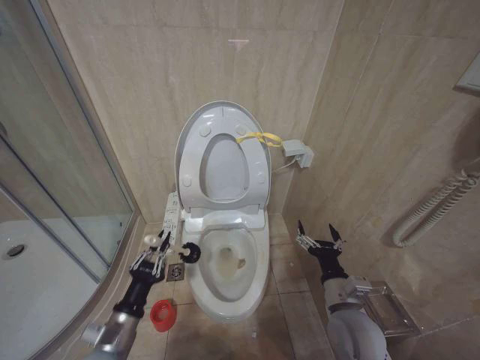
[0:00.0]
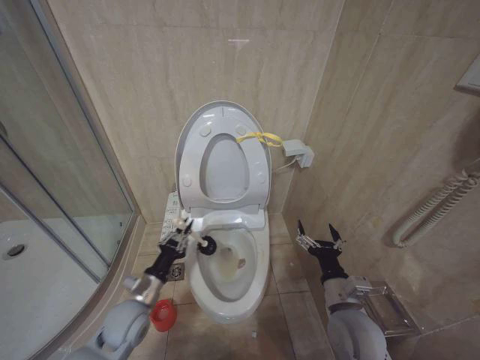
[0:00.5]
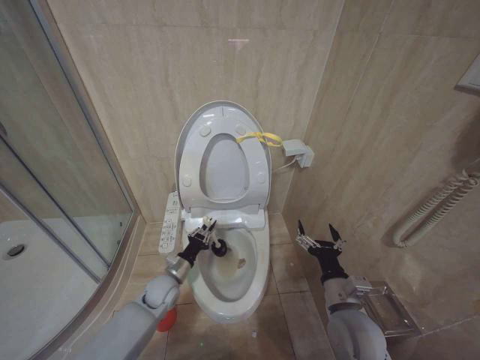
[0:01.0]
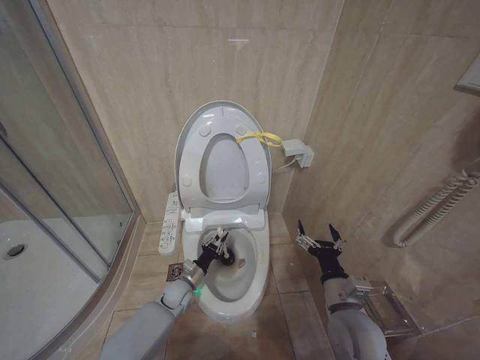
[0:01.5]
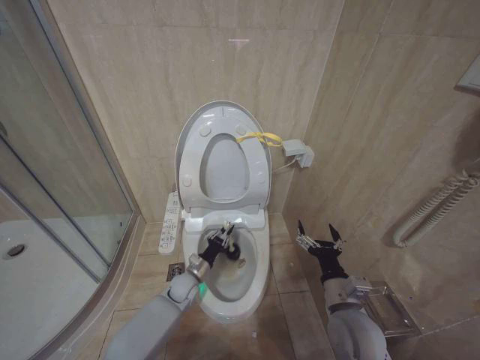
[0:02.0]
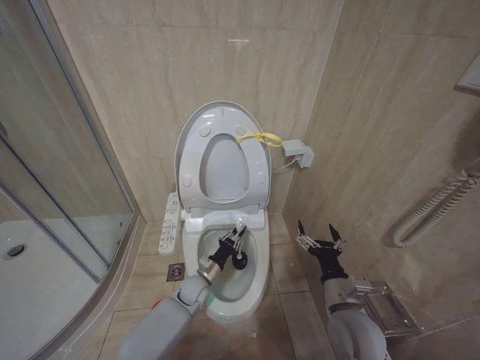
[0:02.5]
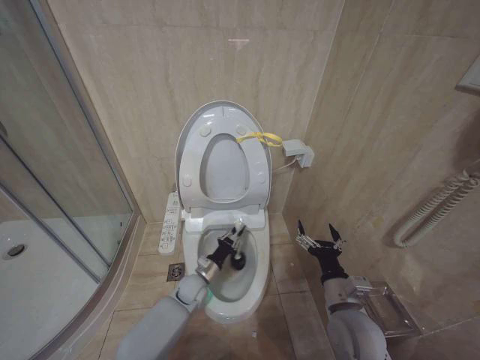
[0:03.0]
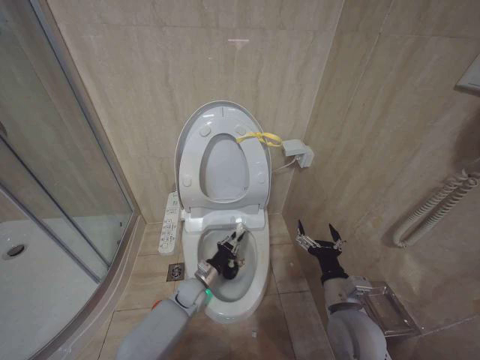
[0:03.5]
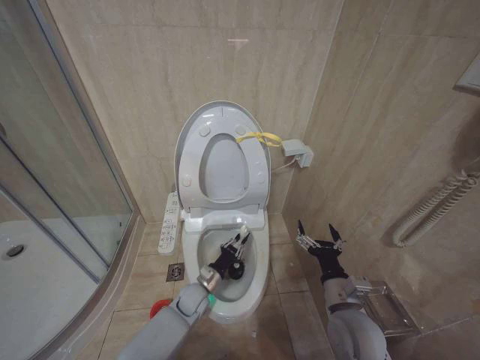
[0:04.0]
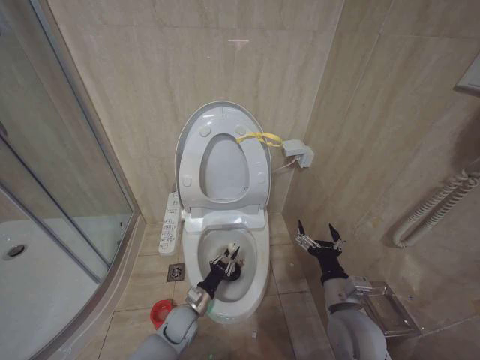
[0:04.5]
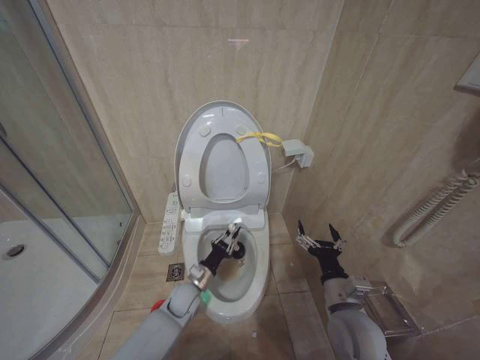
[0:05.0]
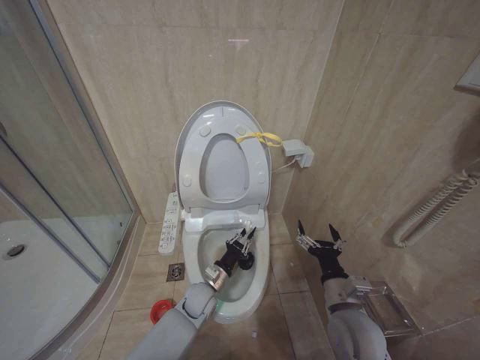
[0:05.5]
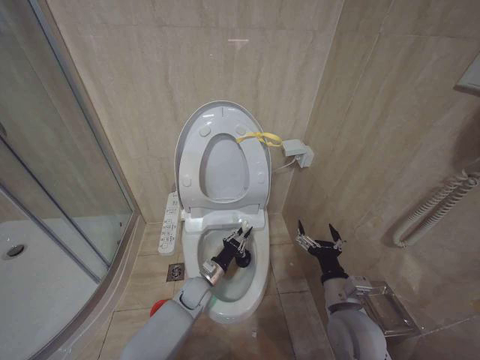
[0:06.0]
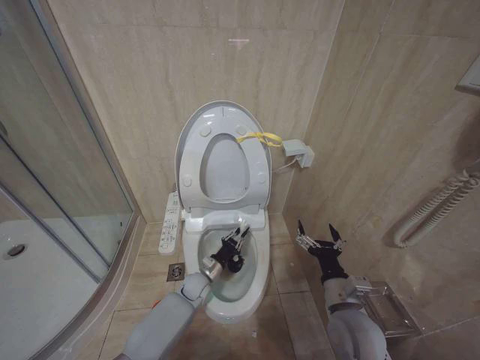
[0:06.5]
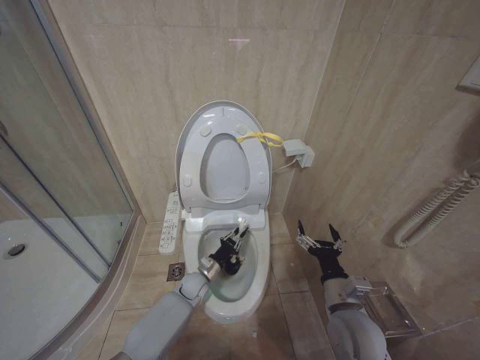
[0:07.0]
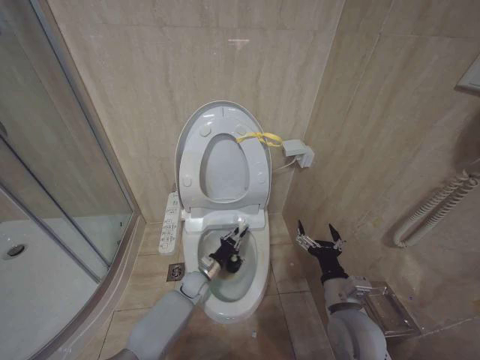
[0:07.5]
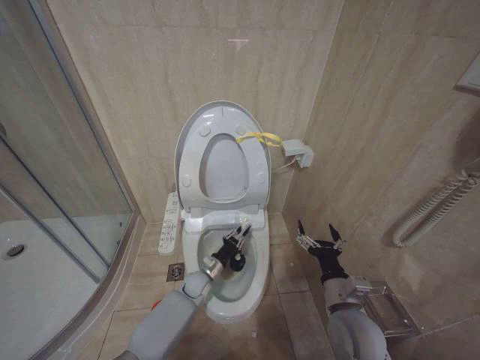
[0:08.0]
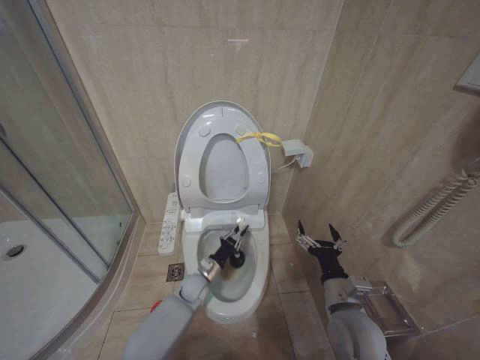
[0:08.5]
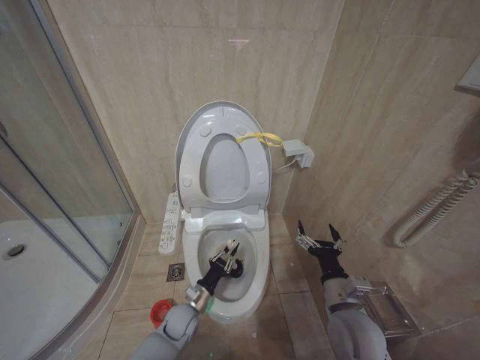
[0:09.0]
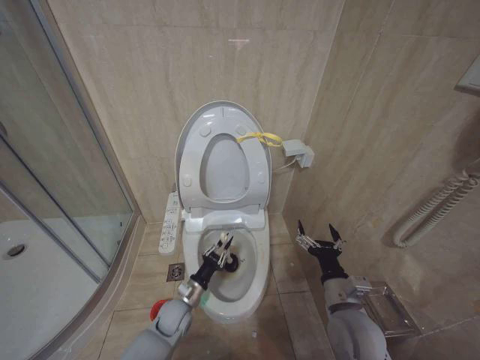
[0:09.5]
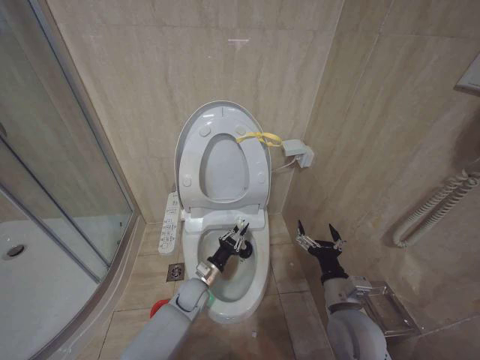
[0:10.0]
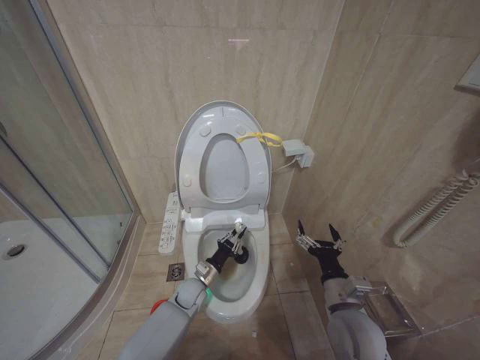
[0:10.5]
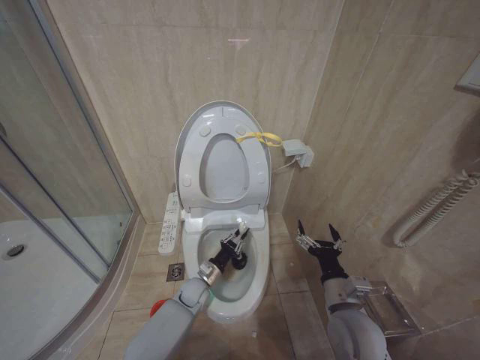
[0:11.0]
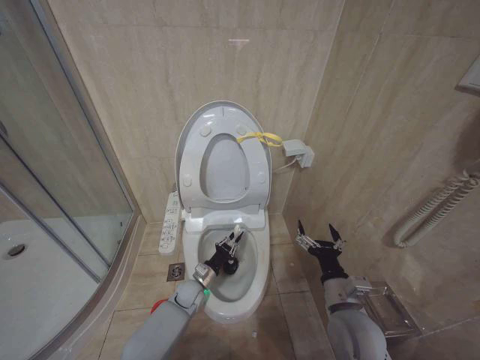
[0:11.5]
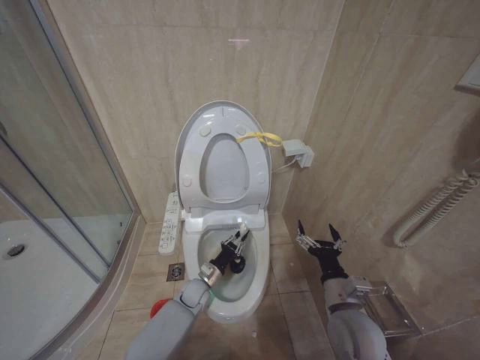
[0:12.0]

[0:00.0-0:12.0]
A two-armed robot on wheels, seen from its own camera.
Task of the whole recording: Open the toilet lid, clean the toilet bowl with a toilet brush, close the toilet lid, and flush.
0:00.0 to 0:02.0: The left gripper shifts some 30 cm forward, downward and to the right.
0:02.0 to 0:04.0: The left gripper changes place by some 5 cm.
0:06.0 to 0:08.0: The grippers stay close to where they were, moving slightly.

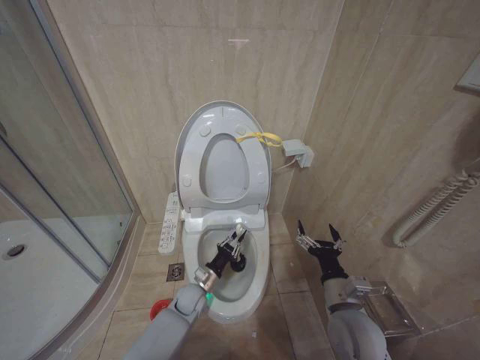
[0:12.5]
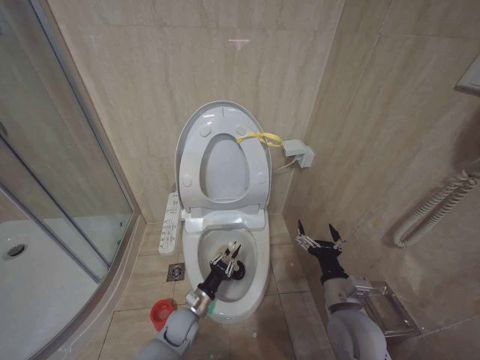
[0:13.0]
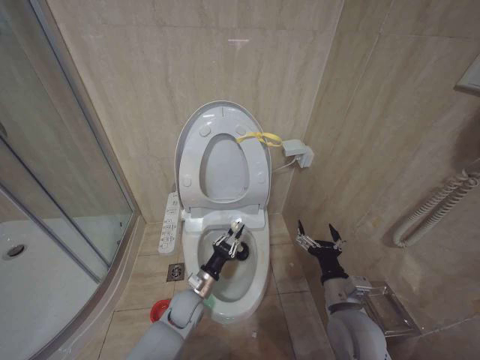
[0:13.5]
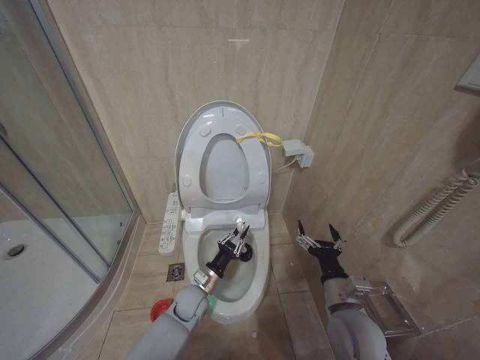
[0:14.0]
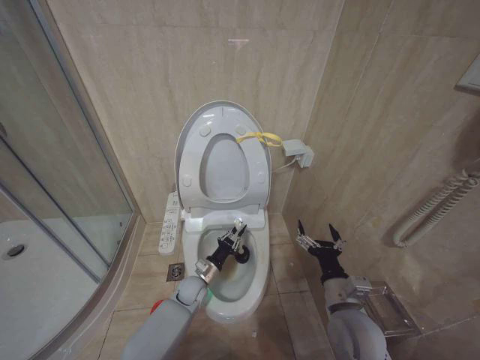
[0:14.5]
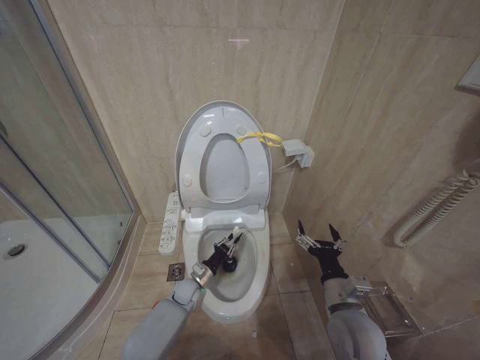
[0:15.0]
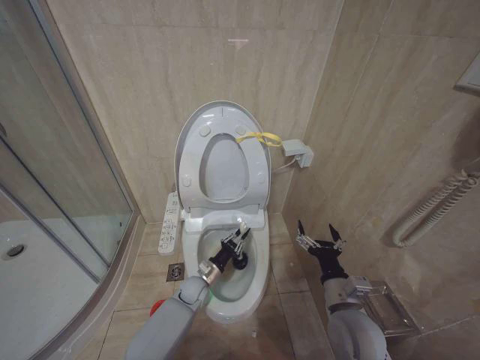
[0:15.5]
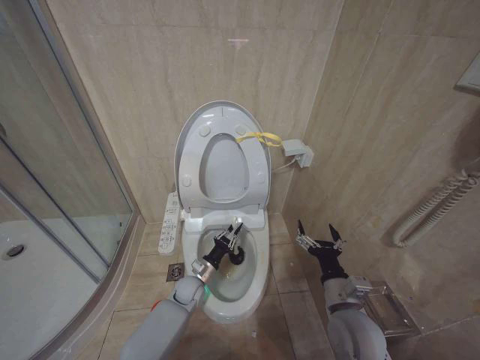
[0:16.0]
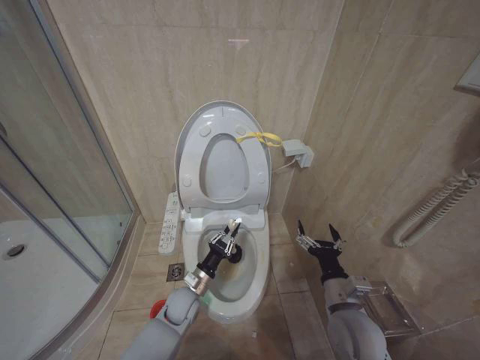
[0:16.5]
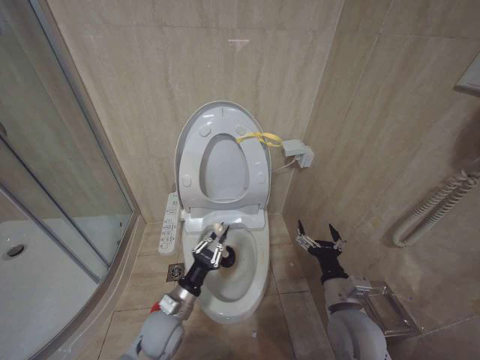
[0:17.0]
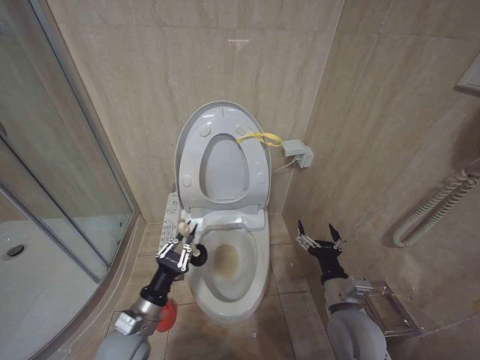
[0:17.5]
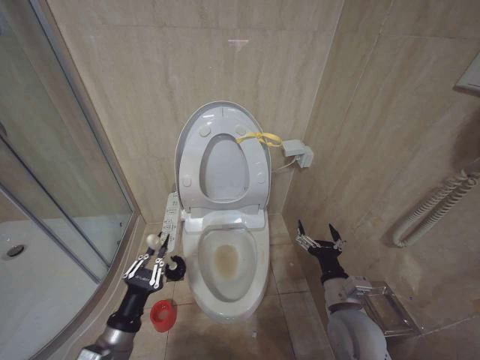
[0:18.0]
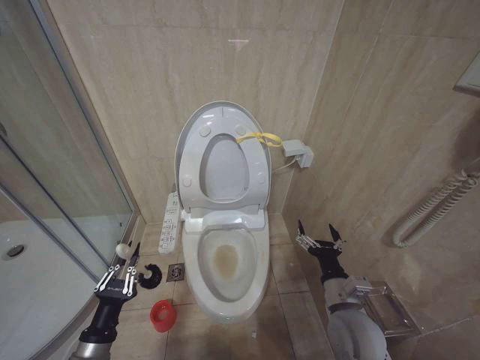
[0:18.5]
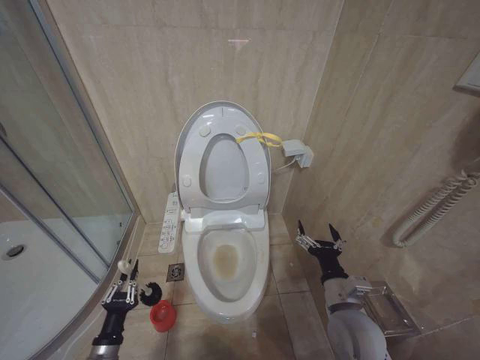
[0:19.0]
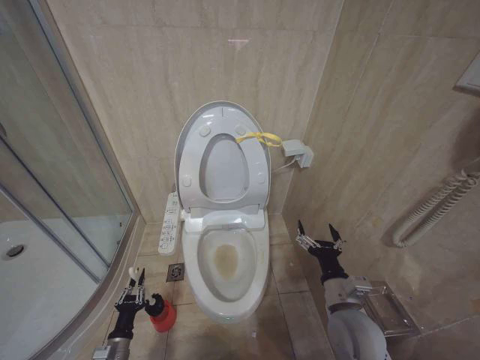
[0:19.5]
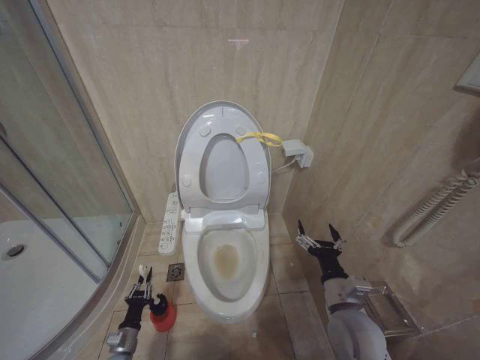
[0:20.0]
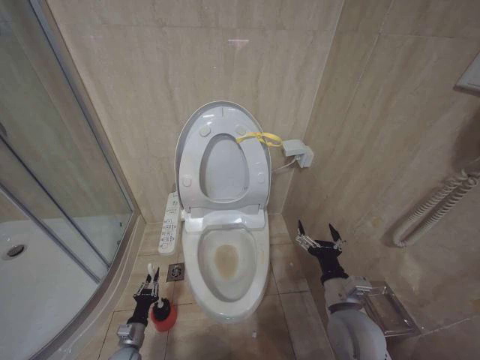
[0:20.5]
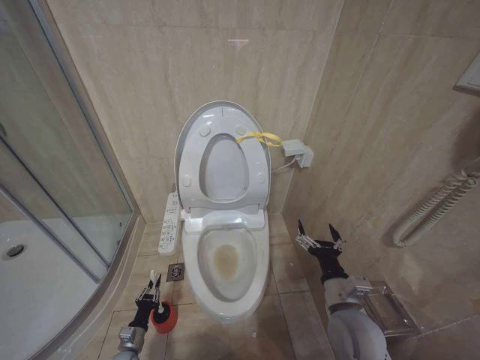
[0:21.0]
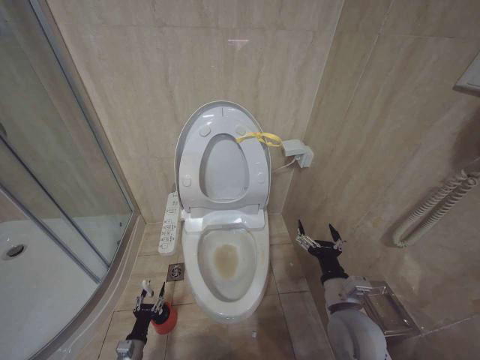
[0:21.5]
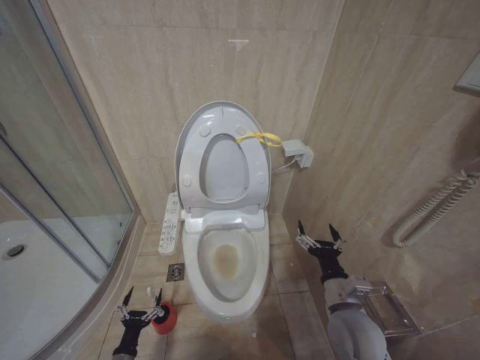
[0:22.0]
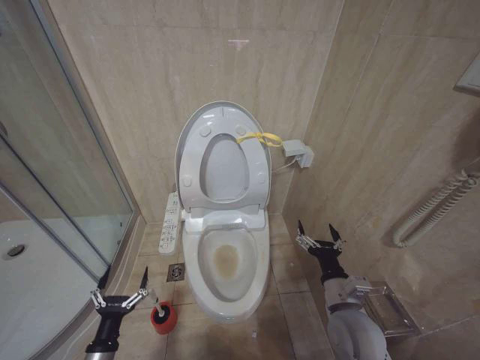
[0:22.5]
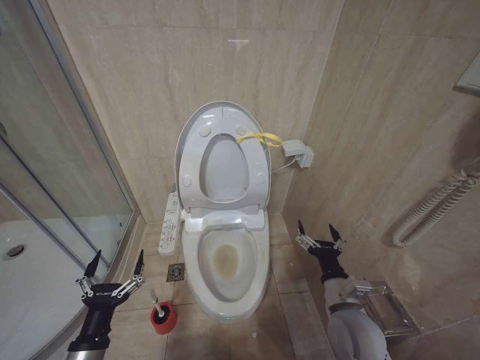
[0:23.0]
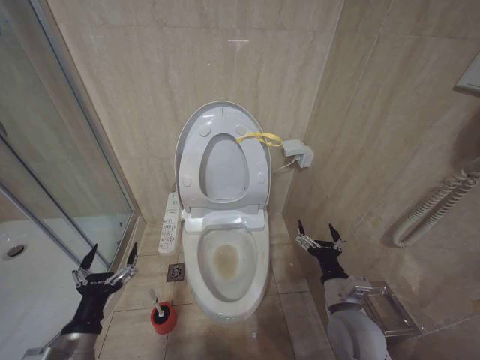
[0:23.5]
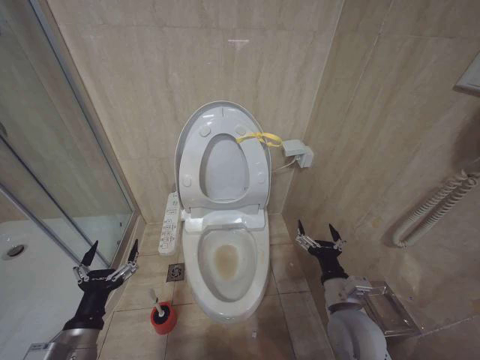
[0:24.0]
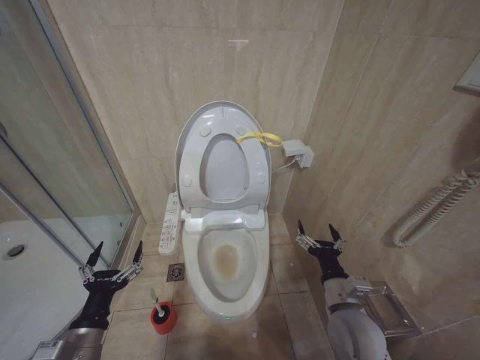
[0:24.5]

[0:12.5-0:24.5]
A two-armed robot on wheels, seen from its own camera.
Task of the whole recording: Open the toilet lid, clean the toilet bowl with a toilet brush, close the toilet lid, and flush.
0:14.5 to 0:16.5: There are only small adjustments of the grippers.
0:16.5 to 0:18.5: The left gripper shifts about 25 cm backward, to the left and upward.
0:18.5 to 0:20.5: The left gripper travels downward and forward by roughly 30 cm.
0:20.5 to 0:22.5: The left gripper moves upward and backward, about 20 cm, and opens its fingers.
0:22.5 to 0:24.5: The left gripper heads upward, covering some 15 cm.

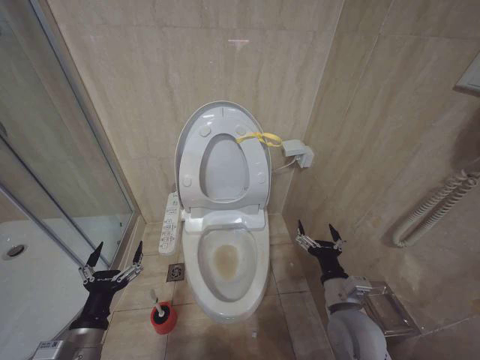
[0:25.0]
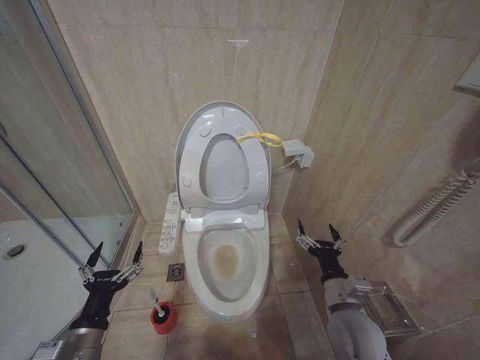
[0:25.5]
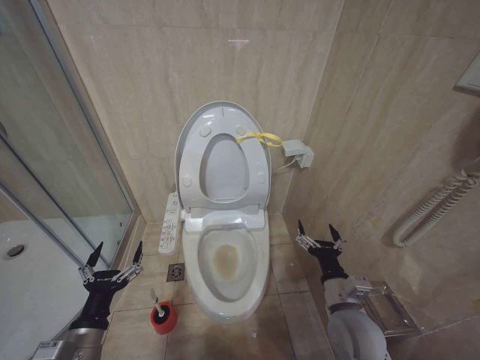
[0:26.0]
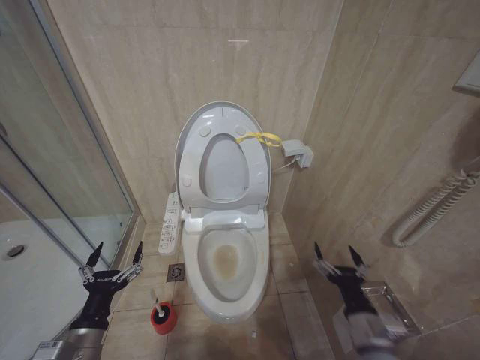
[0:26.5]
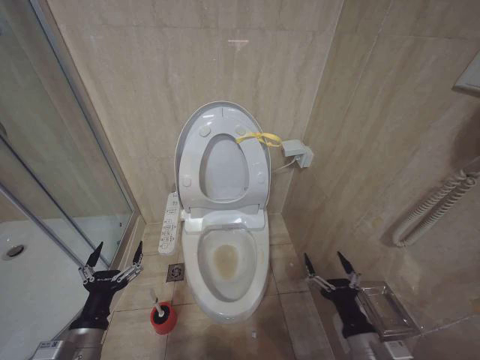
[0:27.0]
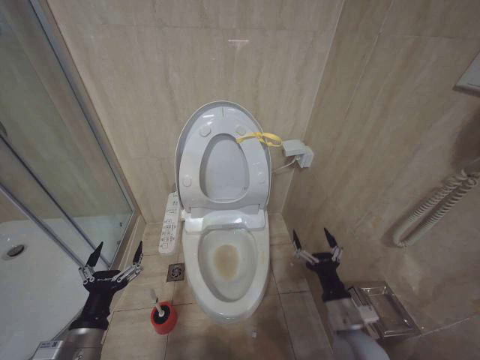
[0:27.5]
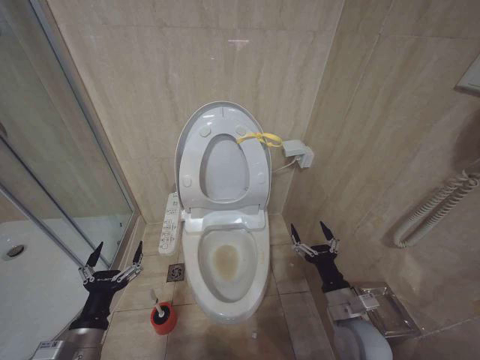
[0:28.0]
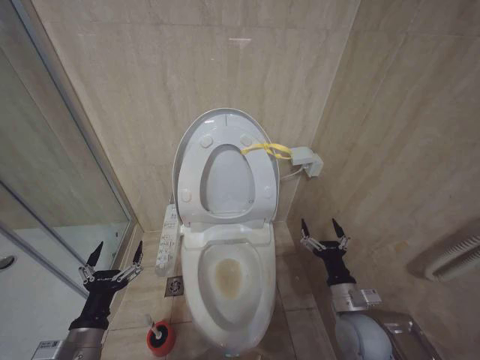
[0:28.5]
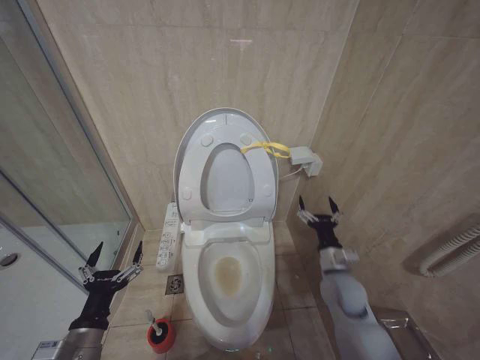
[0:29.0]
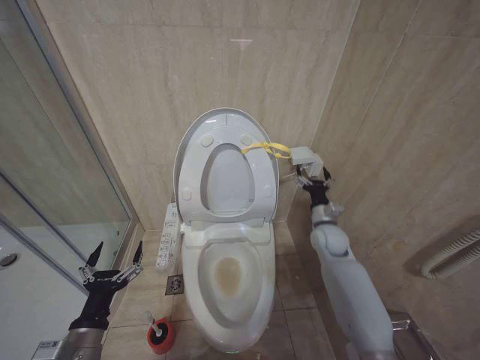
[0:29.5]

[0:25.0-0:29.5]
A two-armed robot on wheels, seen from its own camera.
Task of the whole recording: Open the toilet lid, clean the toilet bowl with a toilet brush, close the toilet lid, and flush.
0:25.0 to 0:27.0: The right gripper heads backward, covering some 10 cm.
0:27.0 to 0:29.5: The right gripper moves forward, approximately 30 cm.
